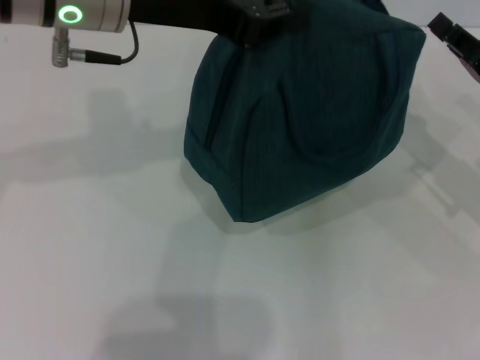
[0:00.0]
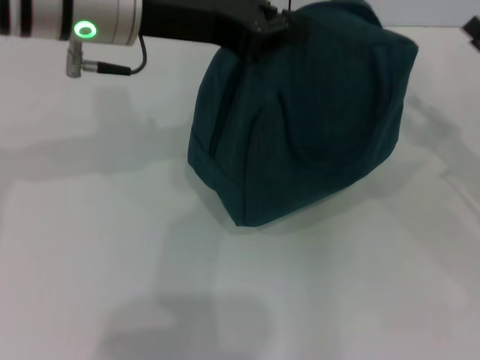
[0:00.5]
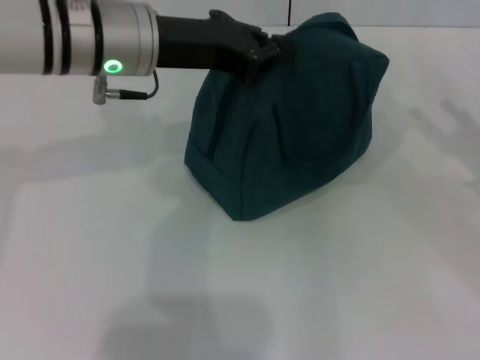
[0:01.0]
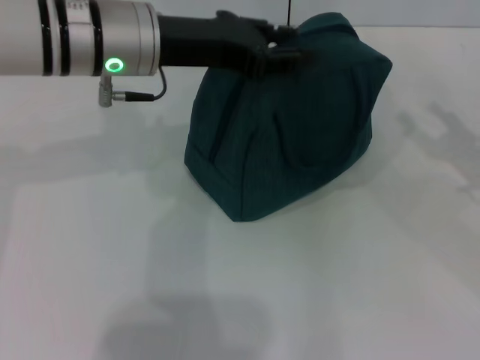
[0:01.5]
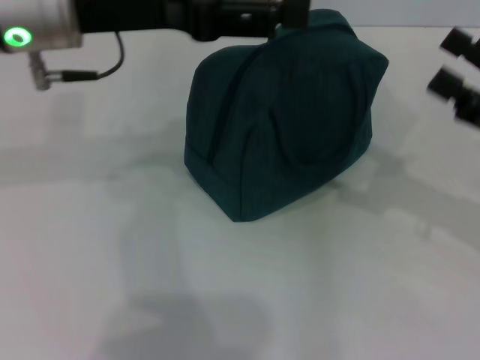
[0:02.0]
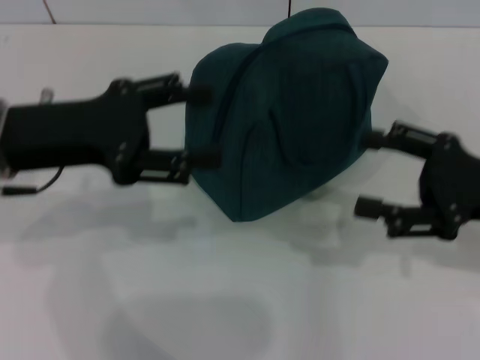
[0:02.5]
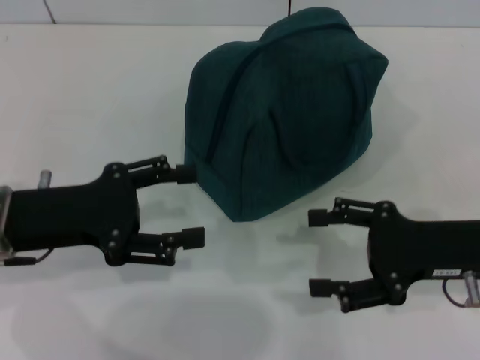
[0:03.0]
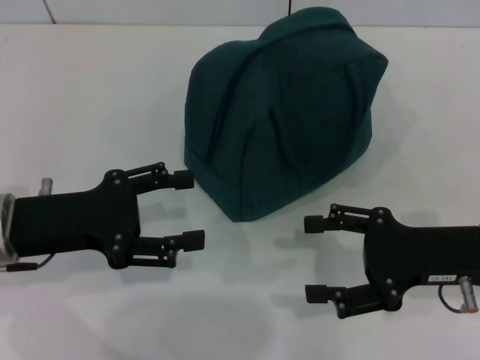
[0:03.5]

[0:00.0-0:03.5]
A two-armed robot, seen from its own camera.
Step, 0:00.5 to 0:01.5: Hold the lunch bag with your left hand.
0:00.0 to 0:02.0: The left gripper opens its fingers. Meanwhile the right gripper moves backward, some 5 cm, and opens.
0:02.0 to 0:03.5: The right gripper shifts some 5 cm to the left; the left gripper moves downward, backward and to the left, some 20 cm.
